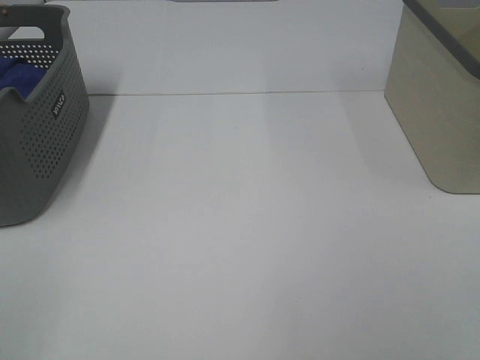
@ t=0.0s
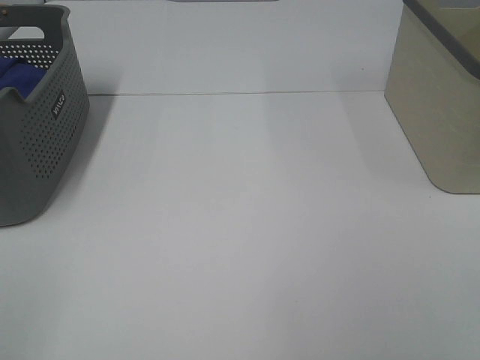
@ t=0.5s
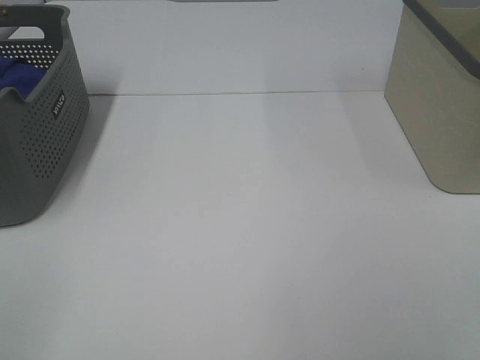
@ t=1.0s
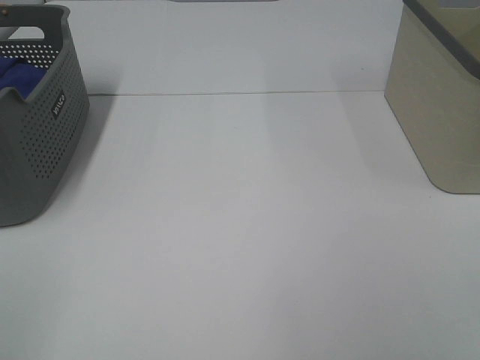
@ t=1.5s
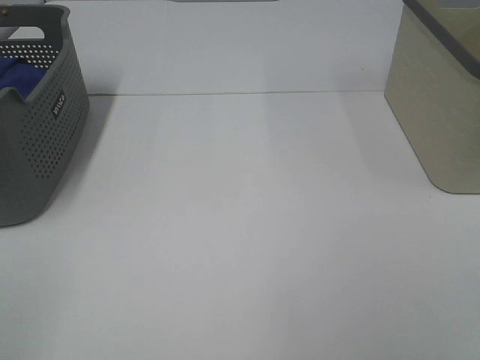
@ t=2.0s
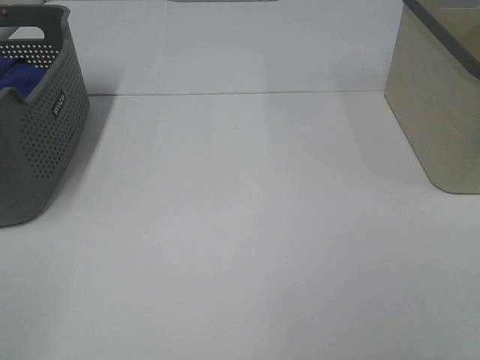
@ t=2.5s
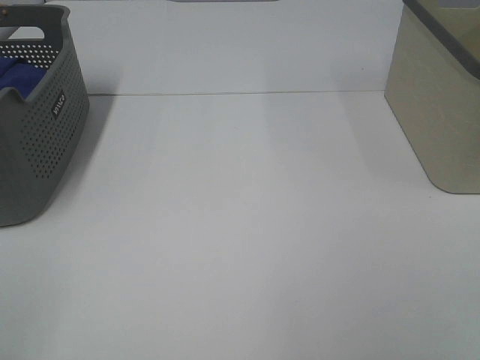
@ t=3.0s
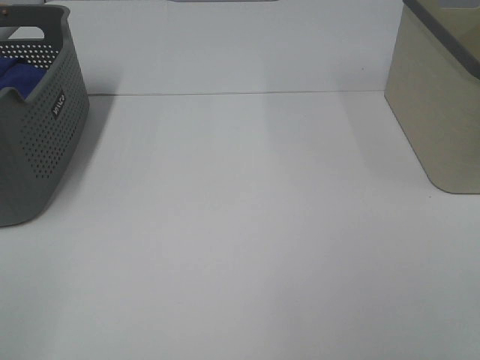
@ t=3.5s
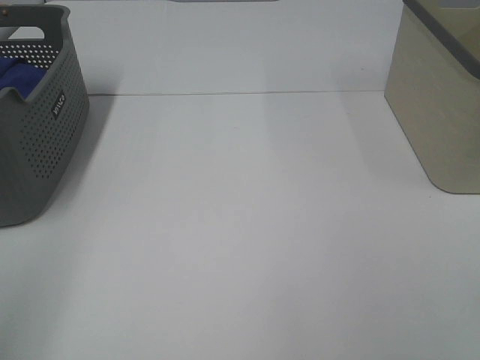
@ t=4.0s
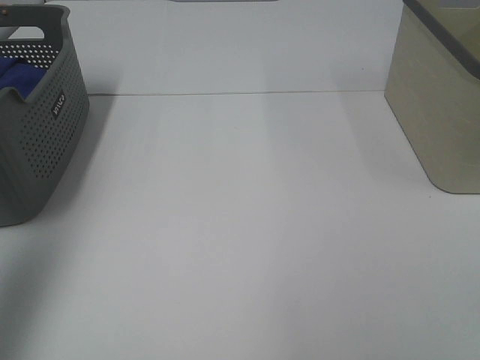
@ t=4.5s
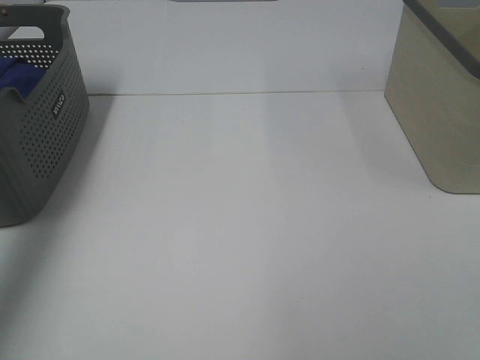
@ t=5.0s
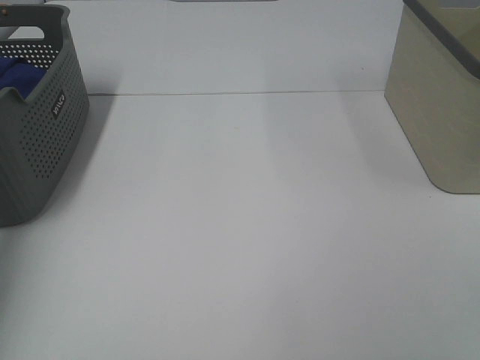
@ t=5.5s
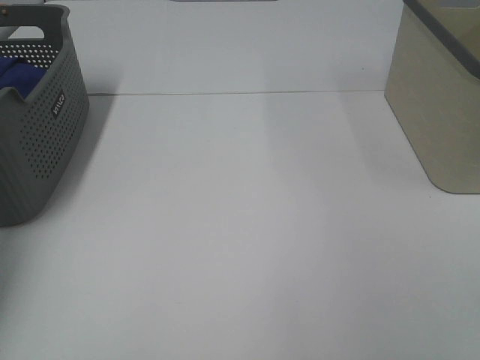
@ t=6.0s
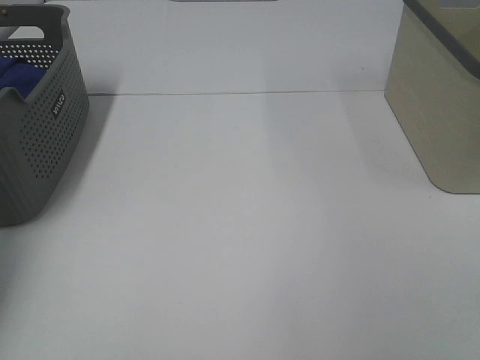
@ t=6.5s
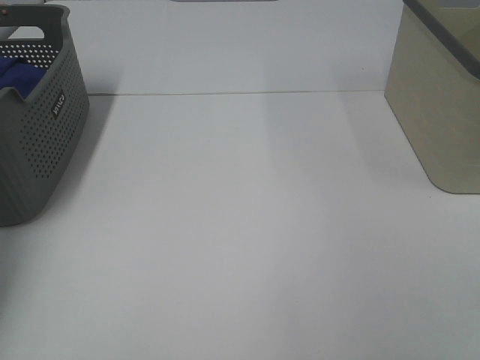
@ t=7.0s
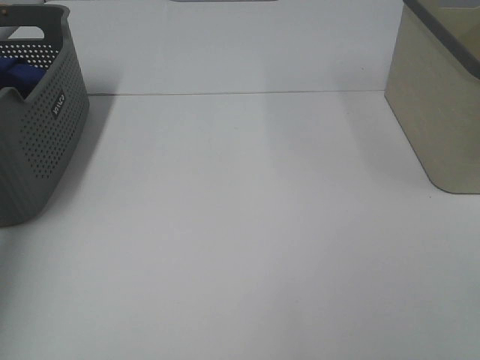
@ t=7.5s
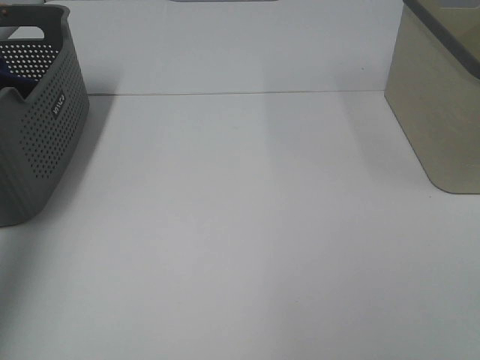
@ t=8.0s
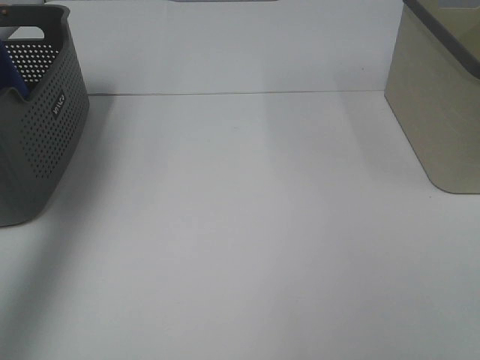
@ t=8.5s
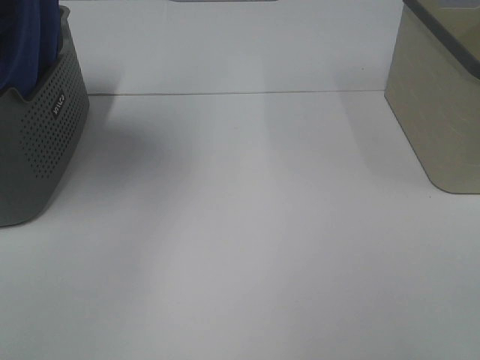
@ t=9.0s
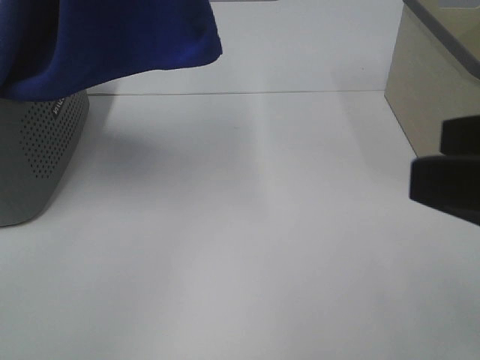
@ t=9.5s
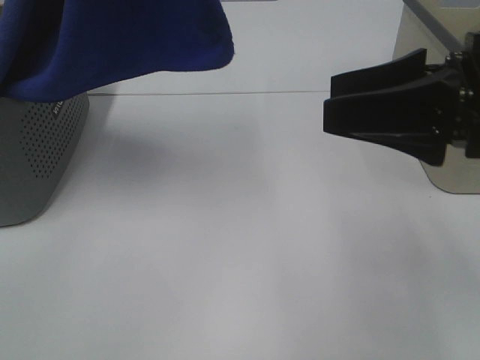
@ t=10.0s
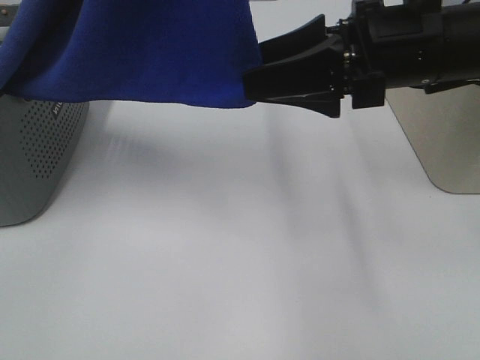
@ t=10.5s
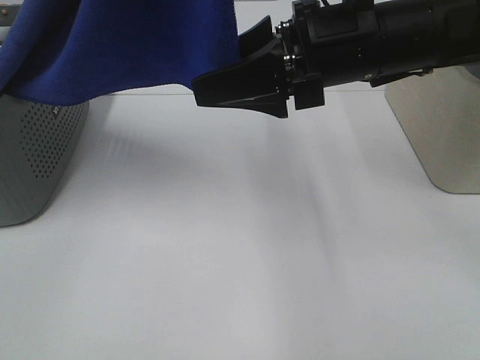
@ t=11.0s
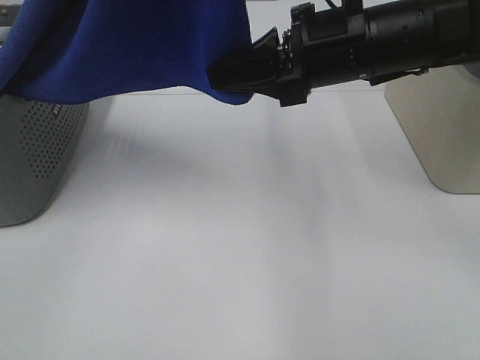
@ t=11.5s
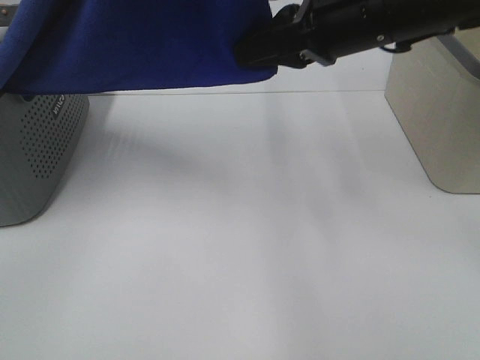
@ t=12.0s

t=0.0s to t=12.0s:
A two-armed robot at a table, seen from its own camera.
Task of the whole recording: Remove the towel and place it.
Step, t=8.5s to t=11.0s: Right hand: grab a corner of the blue towel and straighten it.
t=0.0s to t=2.0s: The two grippers keep their place.
t=4.0s to t=6.0s: The left gripper is displaced forward and downward by approximately 40 cm.
t=6.0s to t=8.0s: The left gripper heads upward, covering some 25 cm, and closes up.
t=8.0s to t=10.0s: The left gripper heads to the right, covering approximately 25 cm. The right gripper is displaced forward by about 20 cm.
t=10.0s to t=12.0s: The right gripper goes roughly 15 cm forward and to the left, and closes.

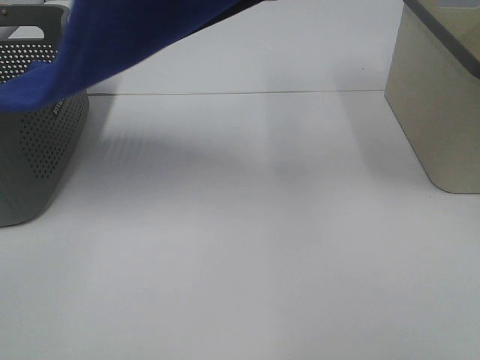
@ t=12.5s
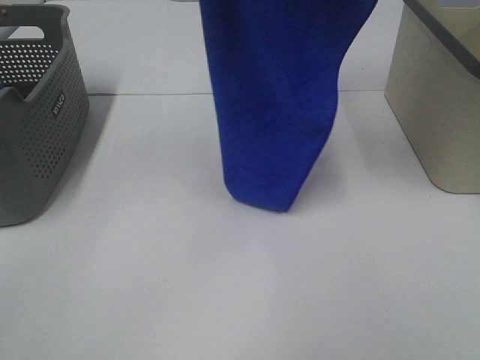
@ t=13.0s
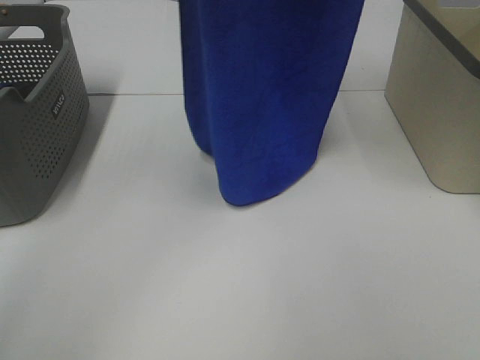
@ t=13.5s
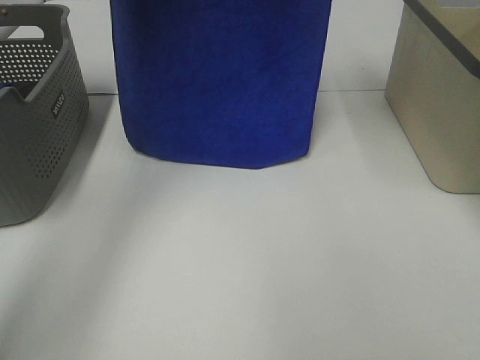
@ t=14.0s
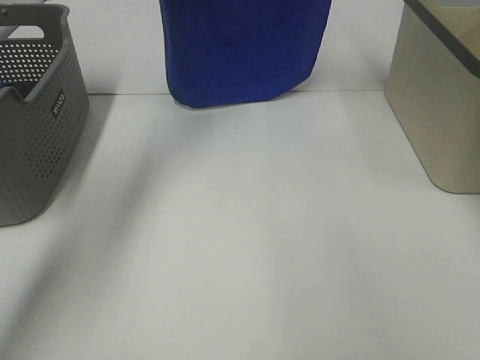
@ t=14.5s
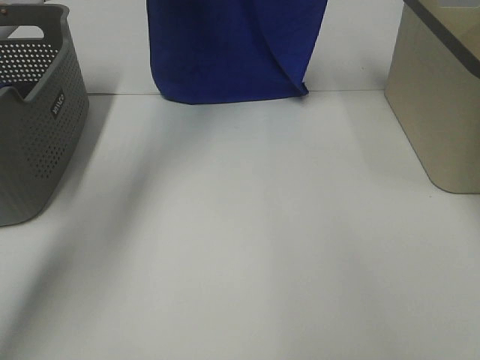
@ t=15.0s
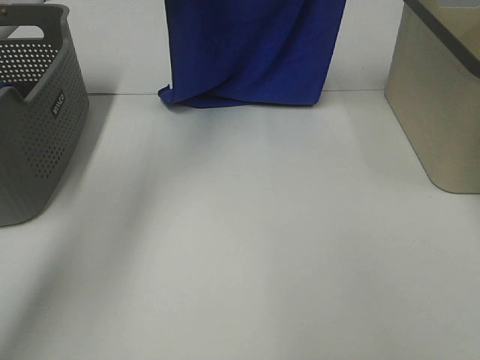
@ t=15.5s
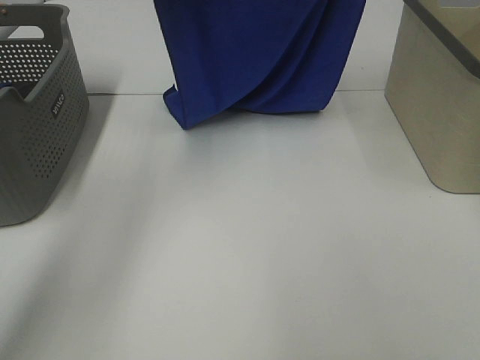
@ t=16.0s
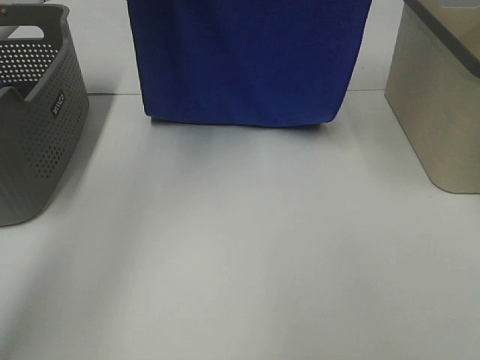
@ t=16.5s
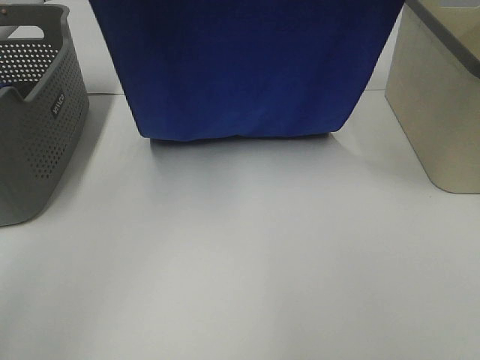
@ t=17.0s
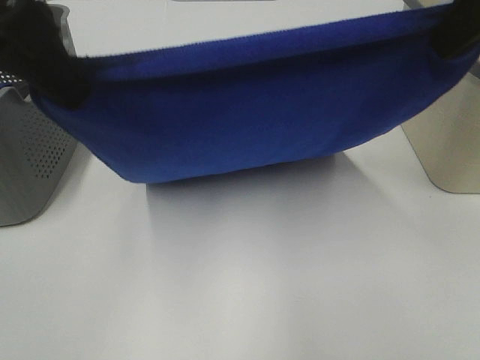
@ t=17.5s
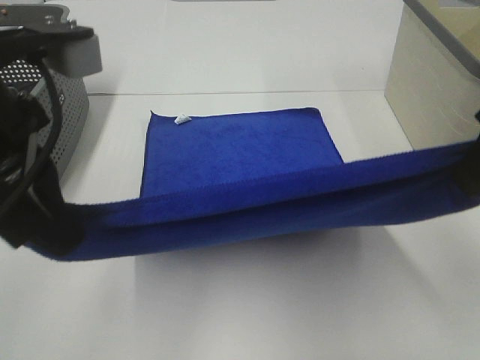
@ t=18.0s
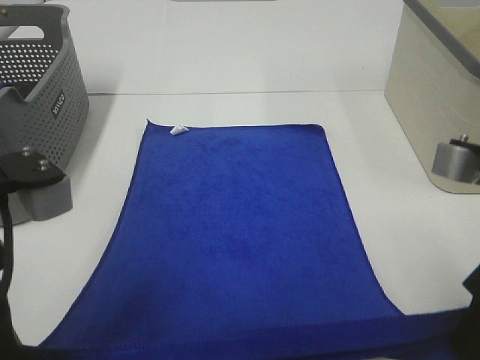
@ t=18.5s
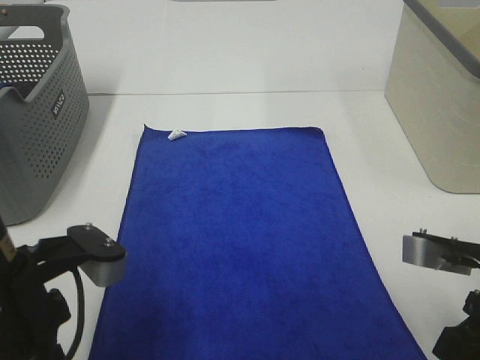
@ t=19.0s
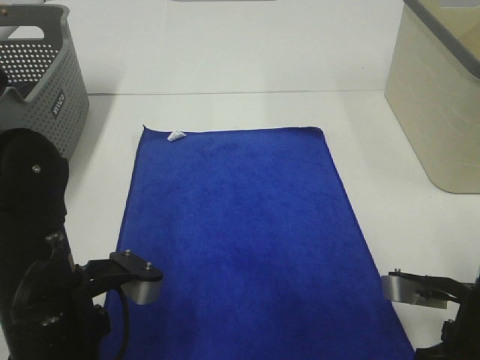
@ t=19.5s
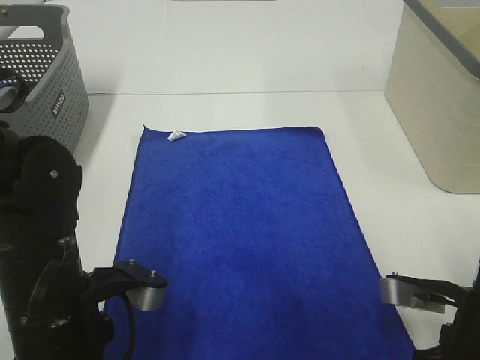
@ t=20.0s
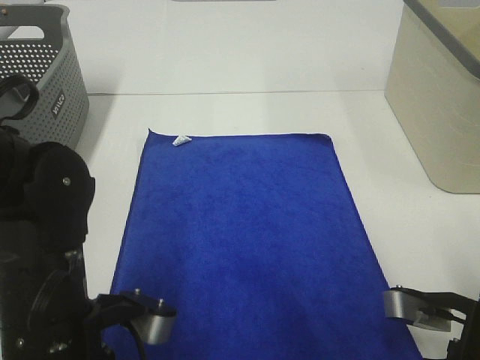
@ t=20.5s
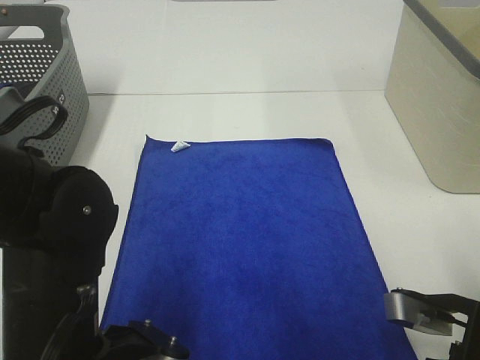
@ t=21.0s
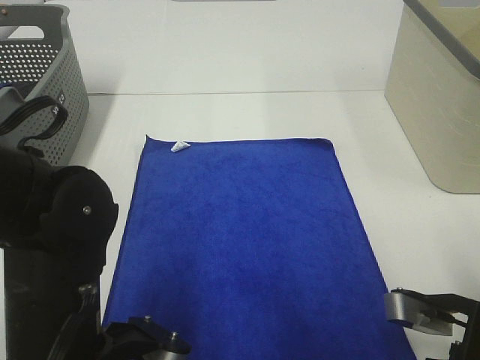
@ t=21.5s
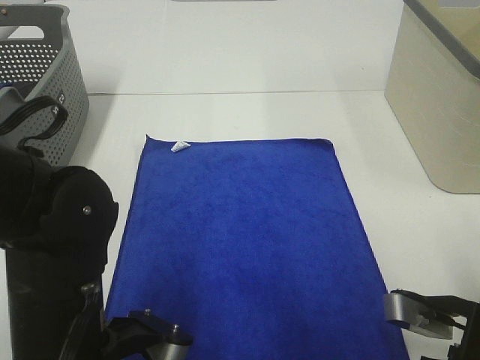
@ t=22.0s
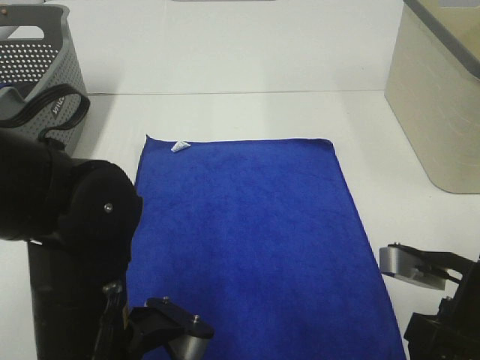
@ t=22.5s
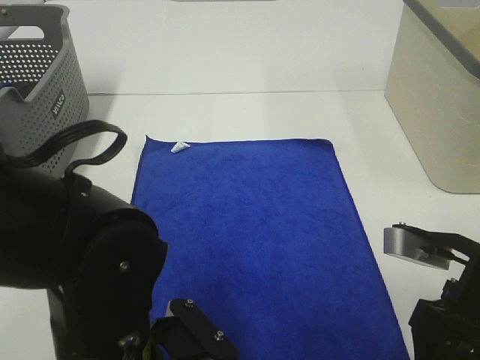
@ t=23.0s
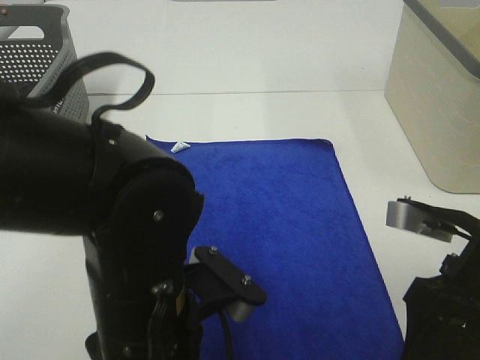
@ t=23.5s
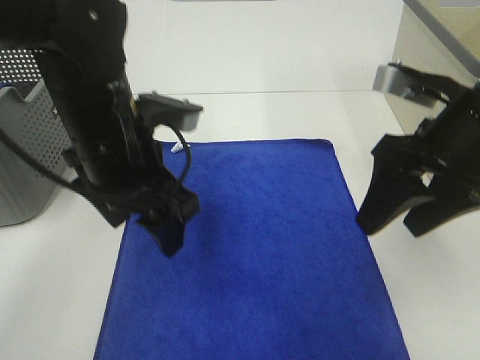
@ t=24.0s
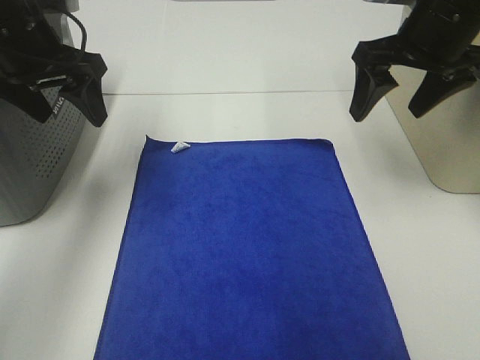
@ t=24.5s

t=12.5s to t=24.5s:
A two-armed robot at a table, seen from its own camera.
Task of the whole recording: Remove the towel and place it.
Step, t=12.5s to t=17.5s: Right hand: spread the blue towel flat on the table.
Step, t=12.5s to t=18.0s: Left hand: spread the blue towel flat on the table.
t=12.5s to t=14.5s: The right gripper heads forward, covering about 15 cm, while the left gripper shifts approximately 25 cm forward.
t=14.5s to t=16.5s: The two grippers go roughly 10 cm backward.
t=16.5s to t=18.5s: The two grippers go roughly 35 cm backward and downward.
t=18.5s to t=20.5s: Both grippers travel together downward, about 10 cm.
t=20.5s to t=22.5s: The right gripper opens. The left gripper opens.
t=22.5s to t=24.5s: The right gripper travels forward and upward by roughly 25 cm, while the left gripper is displaced forward, to the left and upward by about 30 cm.

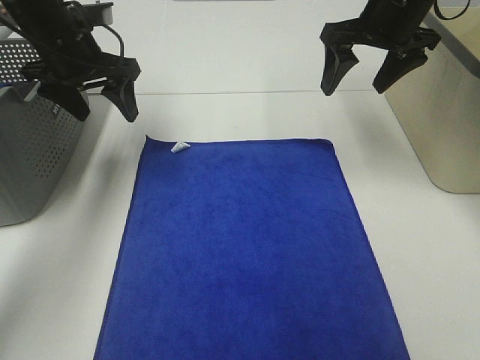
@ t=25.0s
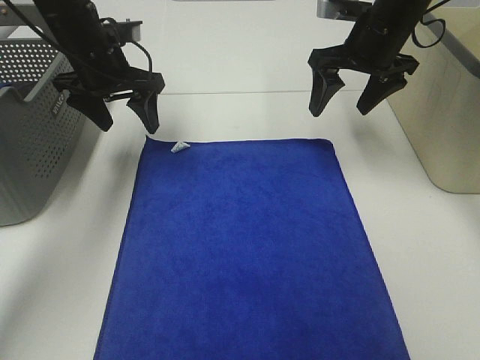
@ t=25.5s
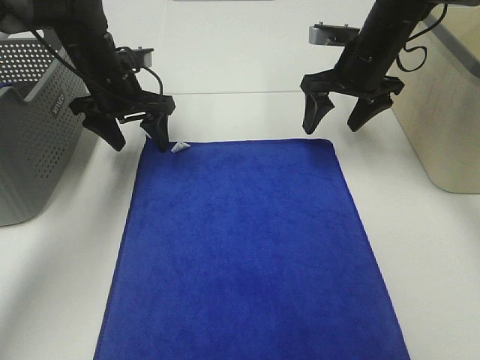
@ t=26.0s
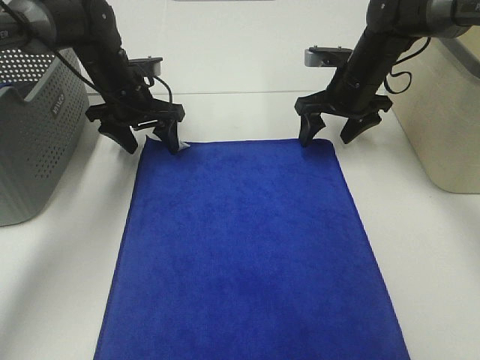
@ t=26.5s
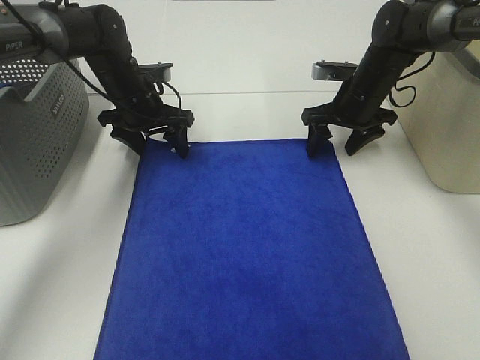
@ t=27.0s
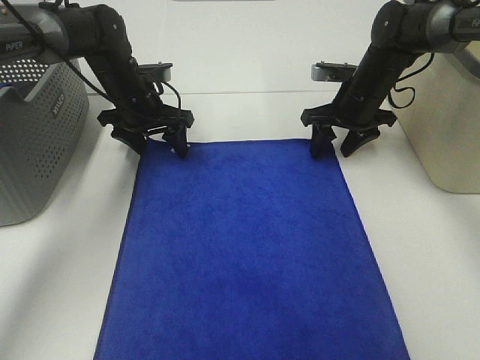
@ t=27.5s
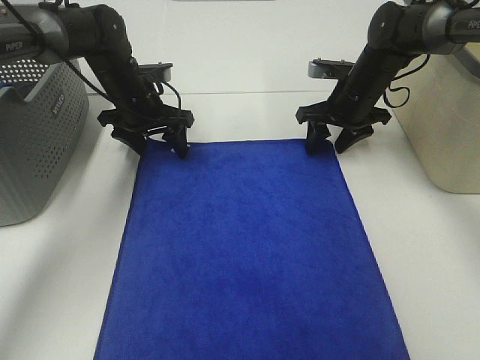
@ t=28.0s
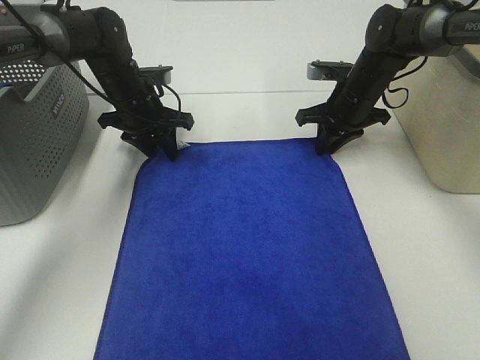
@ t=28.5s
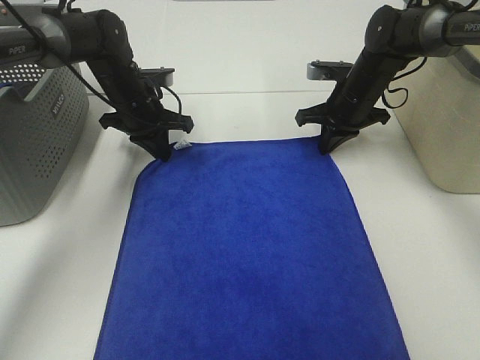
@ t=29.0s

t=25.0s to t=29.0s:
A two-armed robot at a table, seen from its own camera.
Task of the whole recording: Remove the towel and place it.
t=25.0s to t=27.0s: The left gripper moves downward and forward, roughly 10 cm, while the right gripper travels downward by roughly 15 cm.
t=27.0s to t=29.0s: The left gripper closes up, while the right gripper closes up.
